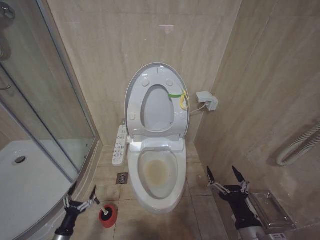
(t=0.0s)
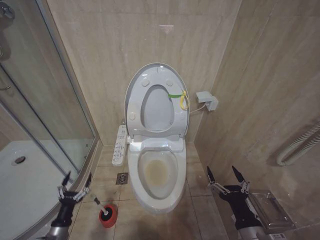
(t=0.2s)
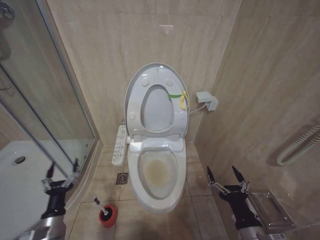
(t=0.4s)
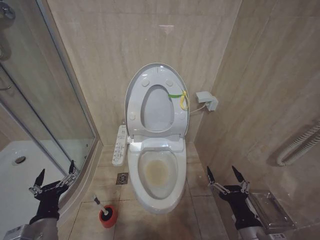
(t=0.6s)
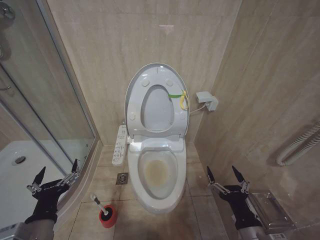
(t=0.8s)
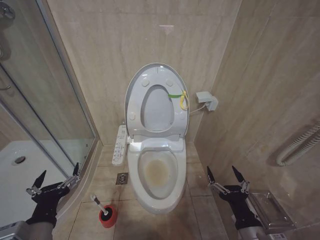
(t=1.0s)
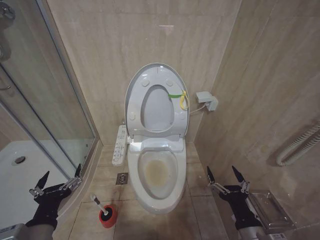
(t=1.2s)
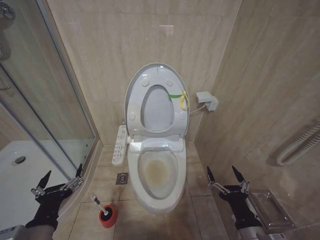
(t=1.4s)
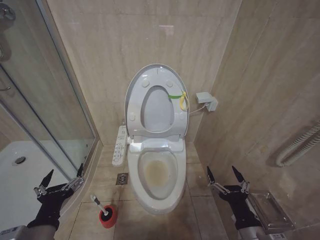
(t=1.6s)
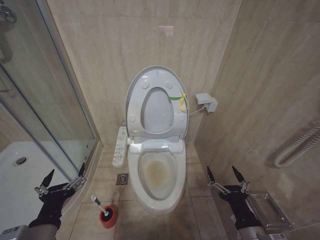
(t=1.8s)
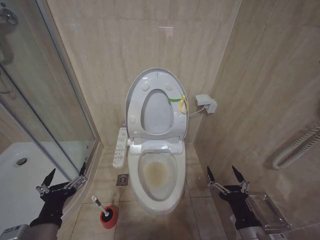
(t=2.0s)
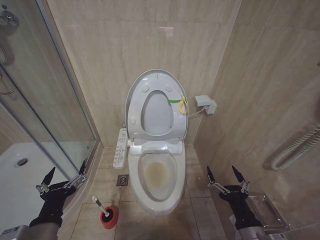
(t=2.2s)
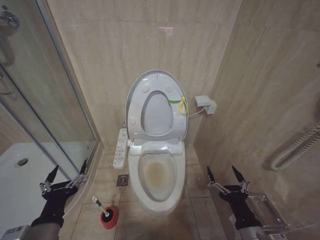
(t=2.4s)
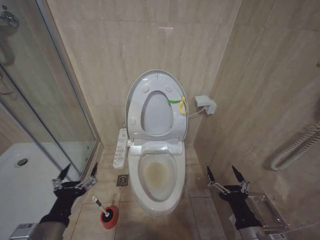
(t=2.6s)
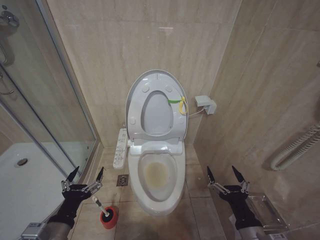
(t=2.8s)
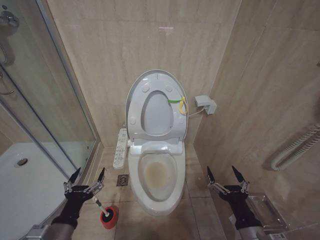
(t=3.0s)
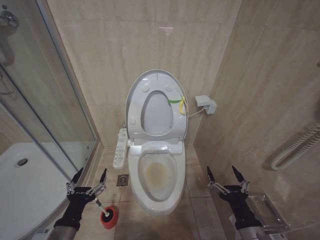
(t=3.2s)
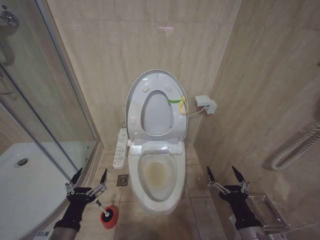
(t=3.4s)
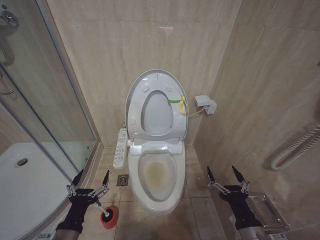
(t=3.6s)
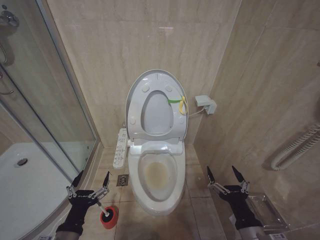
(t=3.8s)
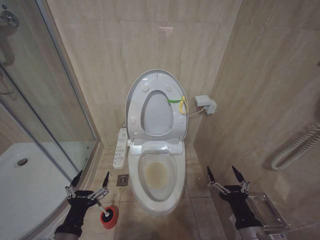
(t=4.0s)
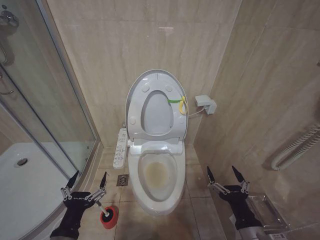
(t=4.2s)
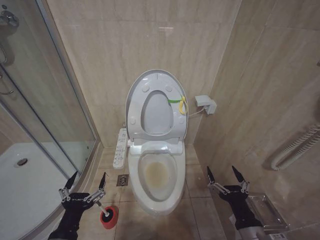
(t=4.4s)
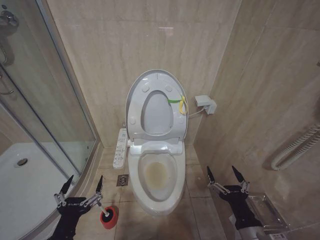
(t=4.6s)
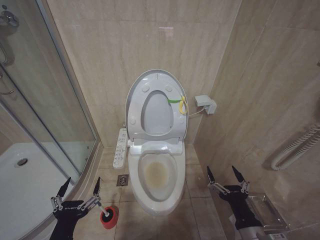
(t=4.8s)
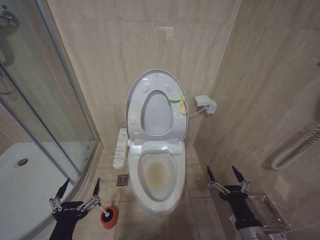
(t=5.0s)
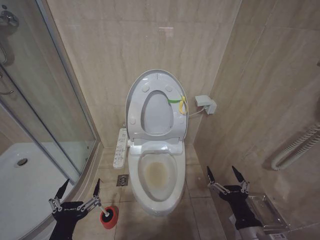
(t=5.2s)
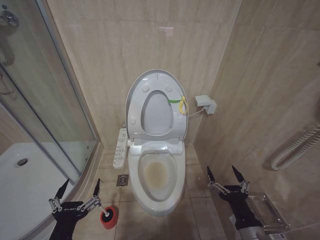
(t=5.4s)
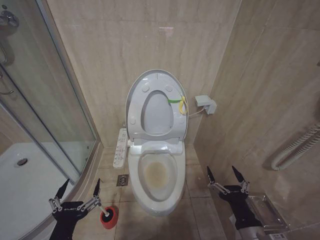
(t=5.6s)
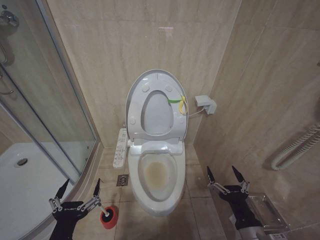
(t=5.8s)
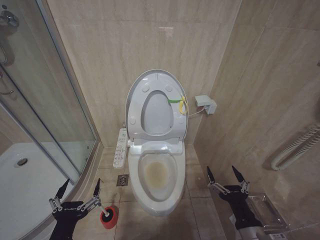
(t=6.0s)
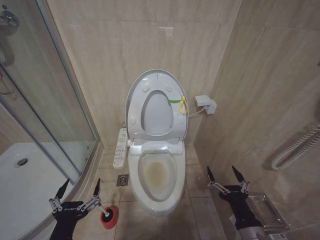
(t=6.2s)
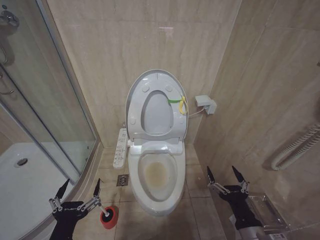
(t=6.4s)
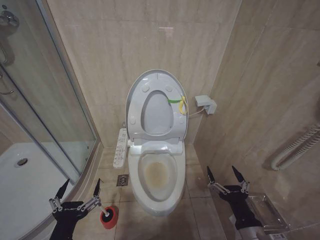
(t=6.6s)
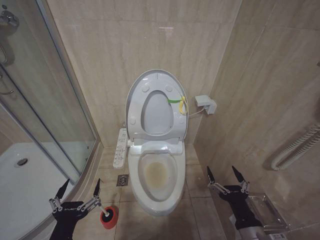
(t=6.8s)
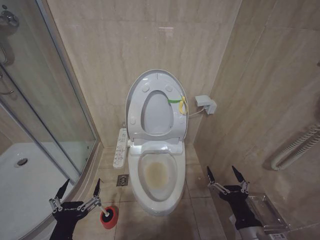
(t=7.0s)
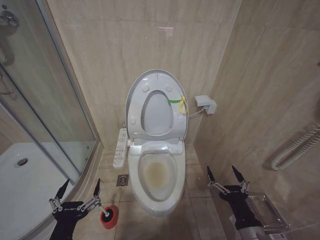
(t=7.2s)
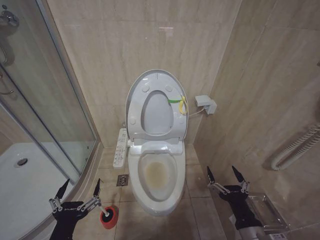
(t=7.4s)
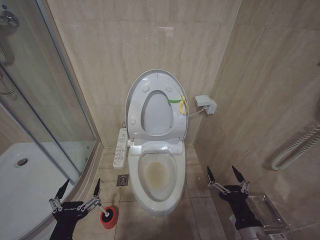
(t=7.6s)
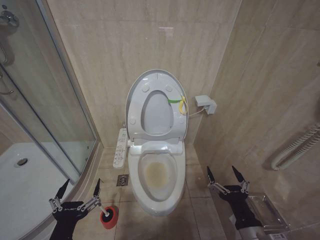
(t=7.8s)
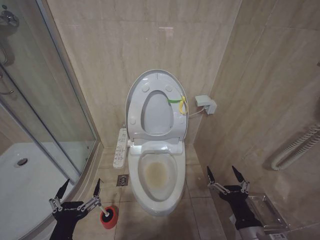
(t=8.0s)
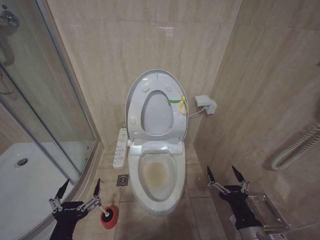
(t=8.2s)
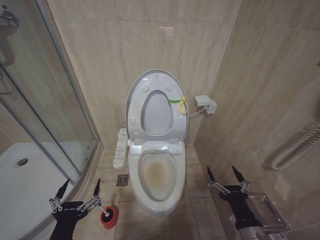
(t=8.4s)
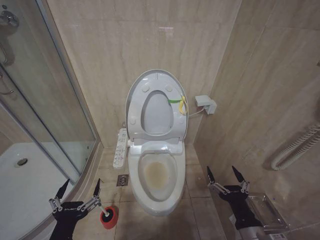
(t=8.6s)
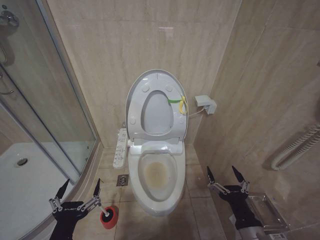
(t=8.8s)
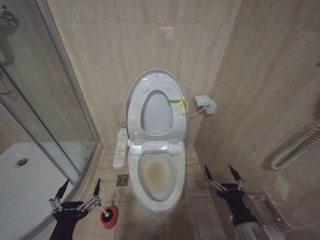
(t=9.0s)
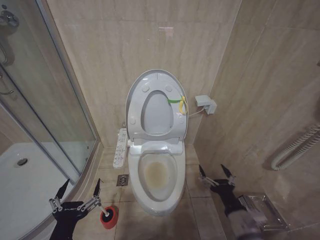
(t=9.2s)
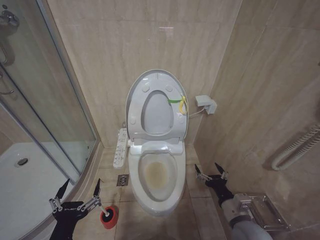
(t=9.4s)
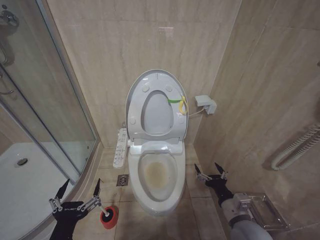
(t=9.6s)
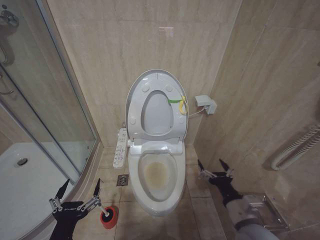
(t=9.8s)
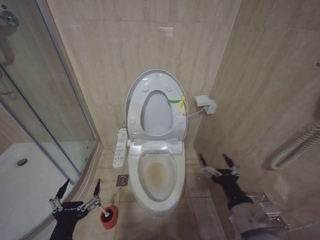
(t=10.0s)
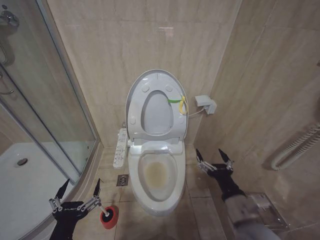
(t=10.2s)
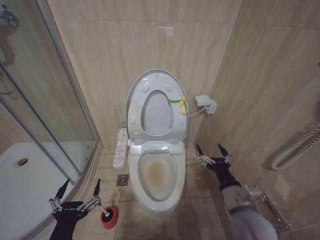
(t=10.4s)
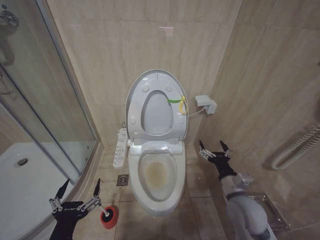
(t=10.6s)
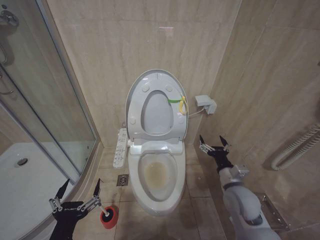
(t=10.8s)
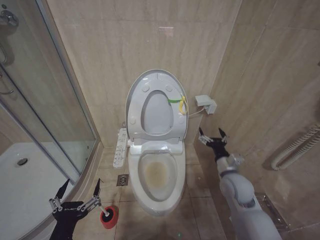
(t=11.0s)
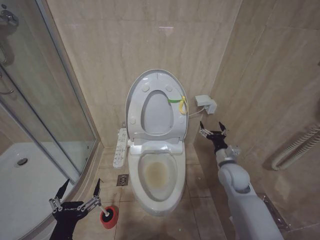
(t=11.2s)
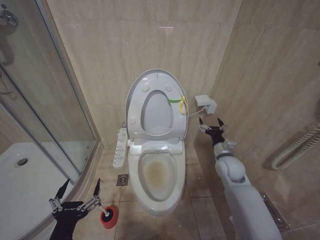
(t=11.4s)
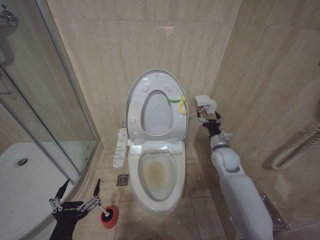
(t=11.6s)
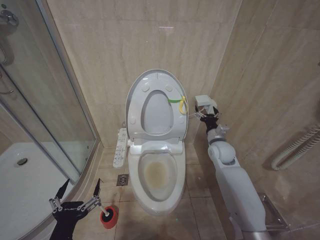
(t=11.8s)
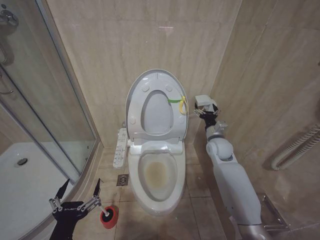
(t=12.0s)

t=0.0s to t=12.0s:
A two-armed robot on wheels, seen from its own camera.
Task of the whole recording: Open the toilet lid, clean the toilet bowl with a toilet brush, close the toilet lid, and flush.
t=0.0s to t=1.6s: The left gripper moves upward and to the right, roughly 35 cm.
t=1.6s to t=3.0s: The left gripper heads downward, covering some 5 cm.
t=3.0s to t=4.4s: There are only small adjustments of the grippers.
t=4.4s to t=6.0s: The grippers stay close to where they were, moving slightly.
t=6.0s to t=9.0s: Neither gripper changes place.
t=9.0s to t=10.4s: The right gripper heads forward, covering some 10 cm.
t=10.4s to t=12.0s: The right gripper travels forward by some 25 cm.

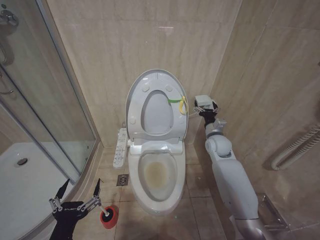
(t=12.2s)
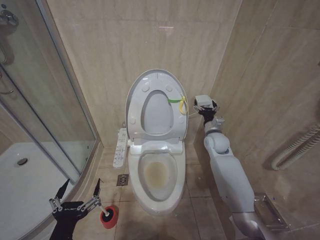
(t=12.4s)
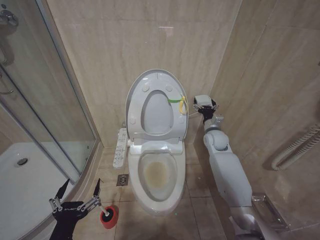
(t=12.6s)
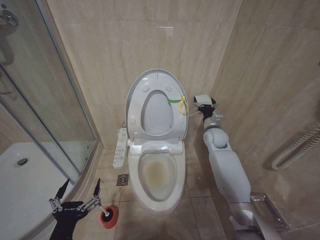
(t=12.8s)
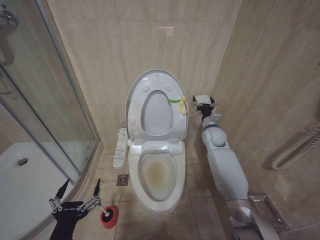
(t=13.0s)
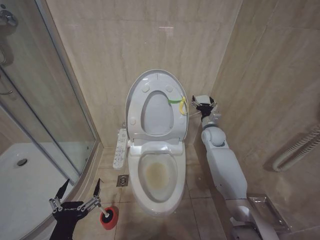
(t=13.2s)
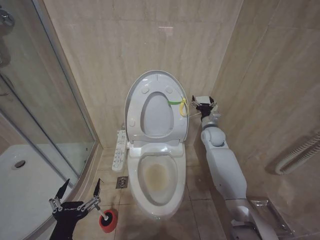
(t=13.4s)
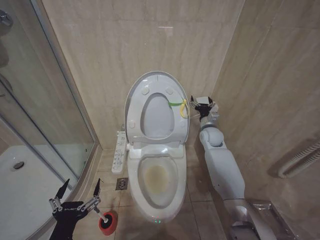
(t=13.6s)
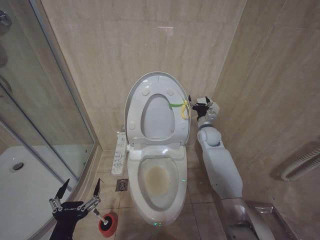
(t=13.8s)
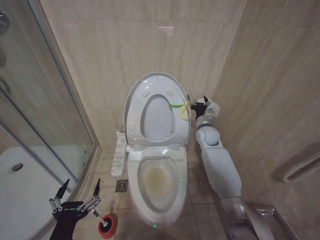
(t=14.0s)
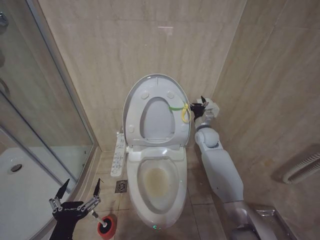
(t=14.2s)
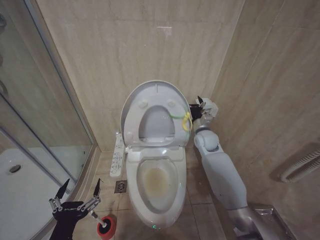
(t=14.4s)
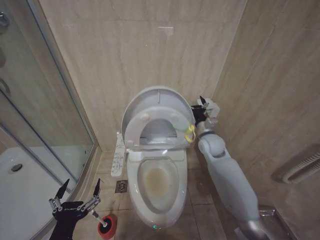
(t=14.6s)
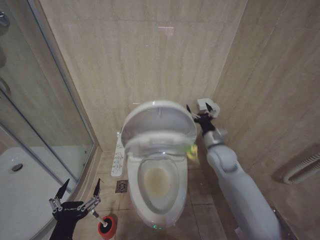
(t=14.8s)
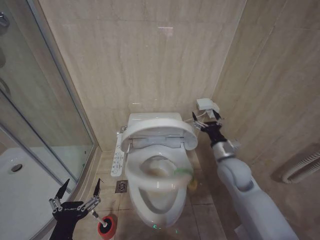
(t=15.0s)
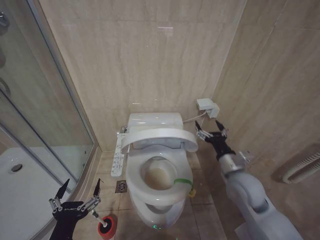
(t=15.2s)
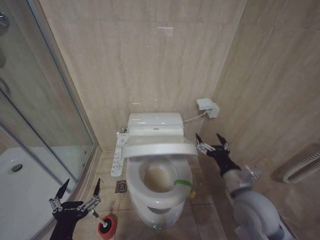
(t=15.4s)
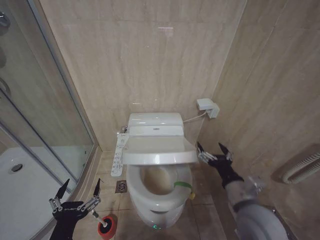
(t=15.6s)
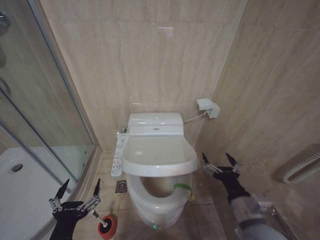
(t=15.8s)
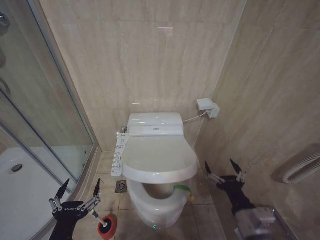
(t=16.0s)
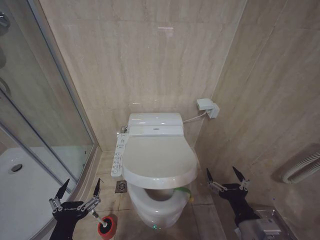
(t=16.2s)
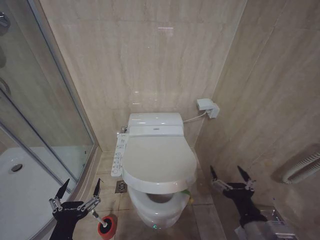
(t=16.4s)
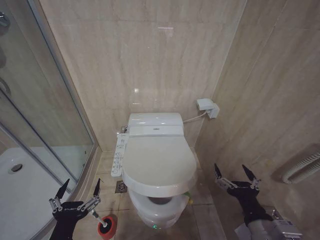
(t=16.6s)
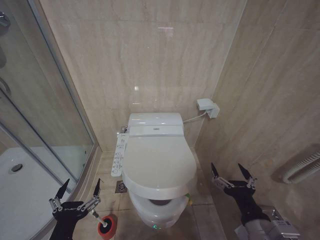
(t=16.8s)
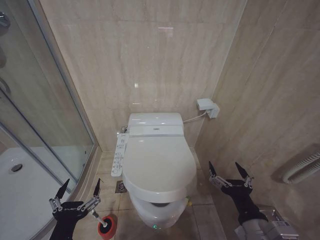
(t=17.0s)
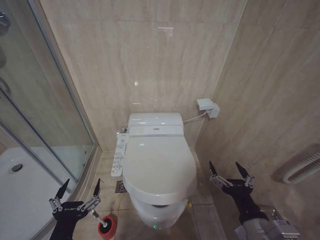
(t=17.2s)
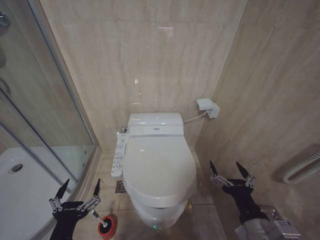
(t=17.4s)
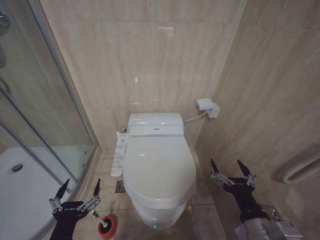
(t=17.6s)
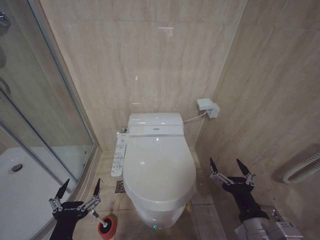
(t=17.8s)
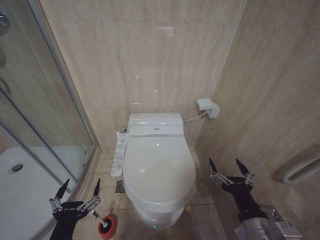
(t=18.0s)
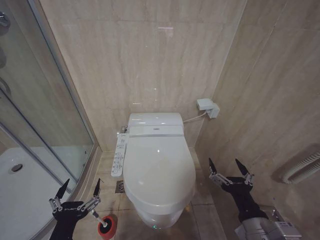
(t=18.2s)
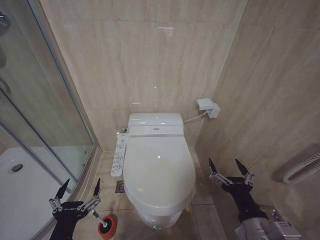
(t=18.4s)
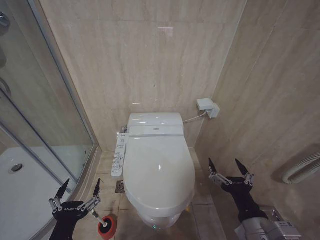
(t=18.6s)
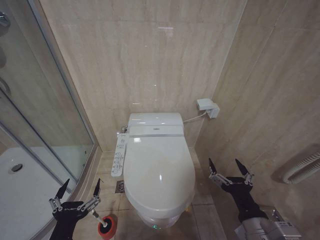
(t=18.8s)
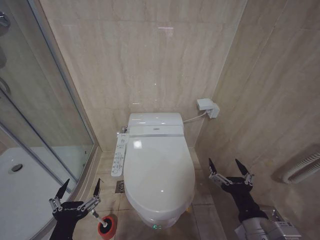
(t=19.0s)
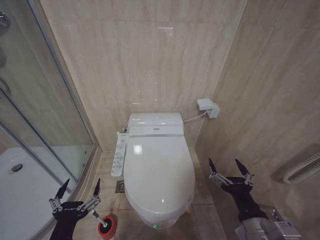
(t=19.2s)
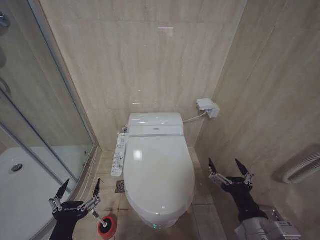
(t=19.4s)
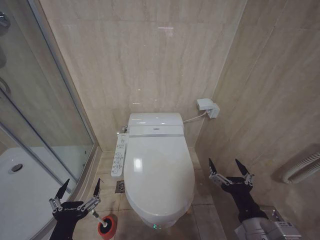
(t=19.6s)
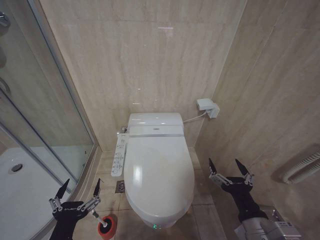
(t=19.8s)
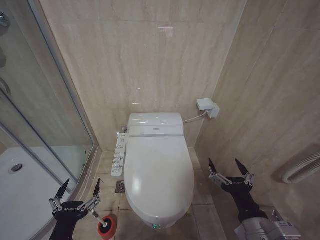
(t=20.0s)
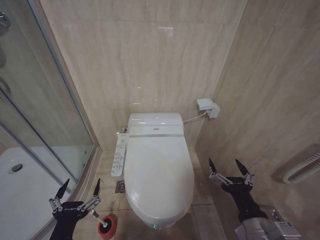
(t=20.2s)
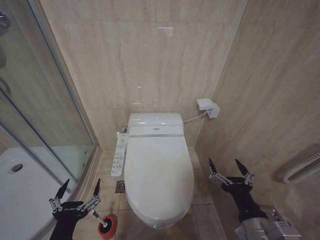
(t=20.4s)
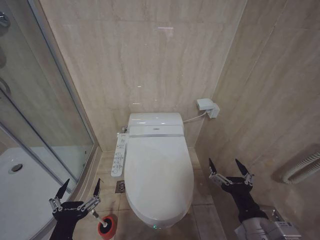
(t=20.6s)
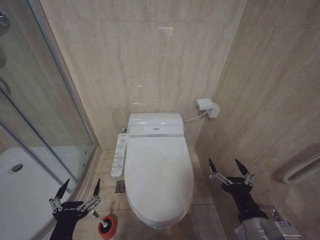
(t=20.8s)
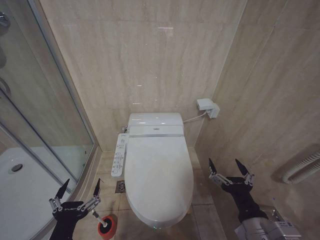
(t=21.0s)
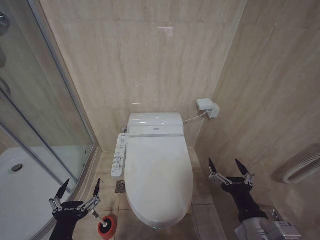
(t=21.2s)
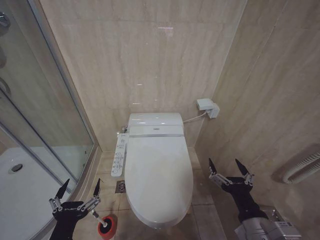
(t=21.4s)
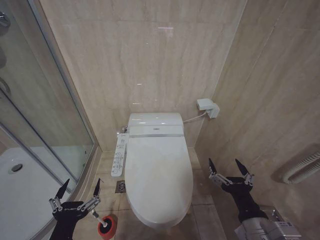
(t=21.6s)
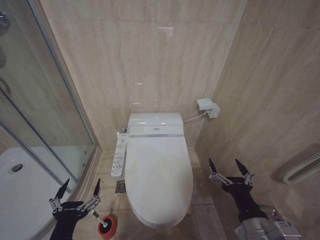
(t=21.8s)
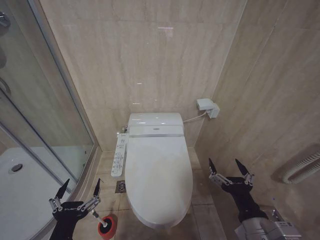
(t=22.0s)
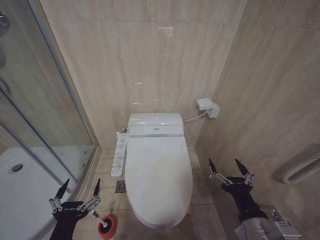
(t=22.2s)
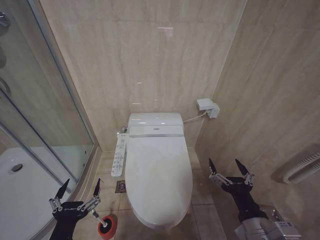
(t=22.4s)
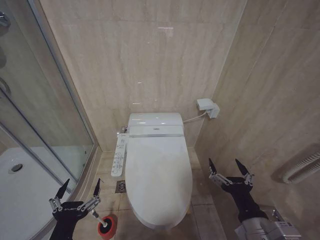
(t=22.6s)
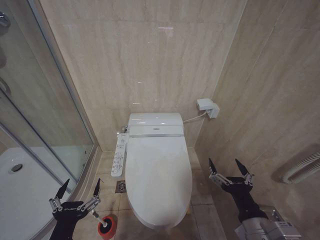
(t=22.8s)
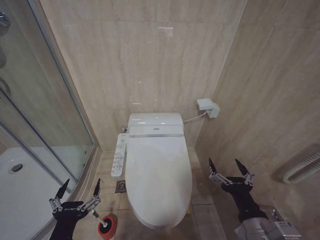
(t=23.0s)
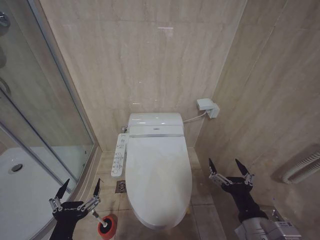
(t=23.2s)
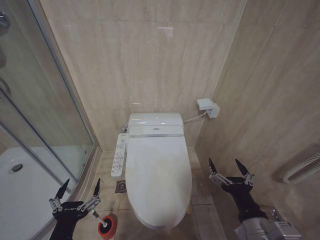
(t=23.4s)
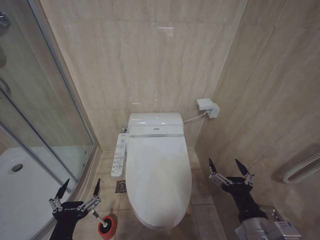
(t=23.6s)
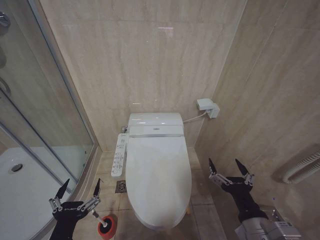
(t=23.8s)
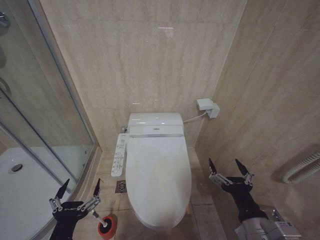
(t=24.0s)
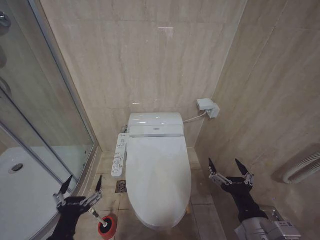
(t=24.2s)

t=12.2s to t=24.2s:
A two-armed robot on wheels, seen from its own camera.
Task of the whole recording: Open the toilet lid, clean the toilet bowl with a toilet brush, close the toilet lid, and flush.
t=12.2s to t=13.8s: The right gripper moves forward, approximately 5 cm.
t=13.8s to t=15.2s: The right gripper heads backward, covering some 20 cm.
t=15.2s to t=16.6s: The right gripper moves backward, about 20 cm.
t=16.6s to t=18.2s: The grippers stay close to where they were, moving slightly.
t=18.2s to t=24.2s: Neither gripper changes place.
